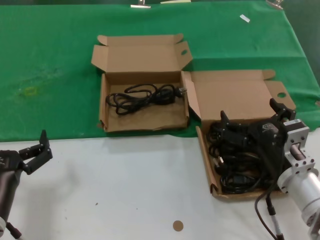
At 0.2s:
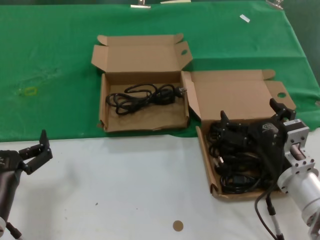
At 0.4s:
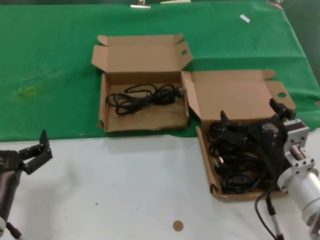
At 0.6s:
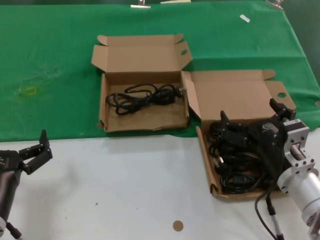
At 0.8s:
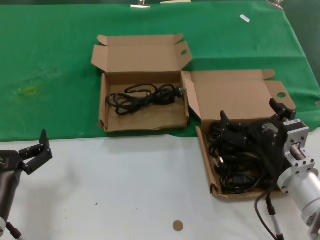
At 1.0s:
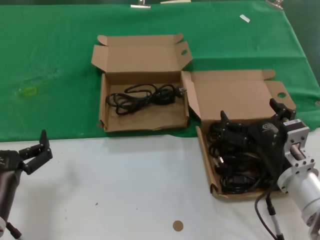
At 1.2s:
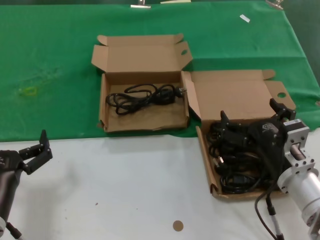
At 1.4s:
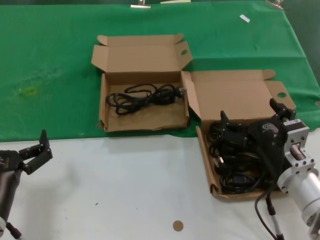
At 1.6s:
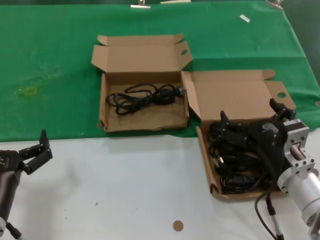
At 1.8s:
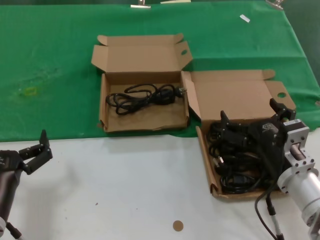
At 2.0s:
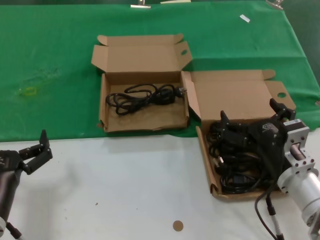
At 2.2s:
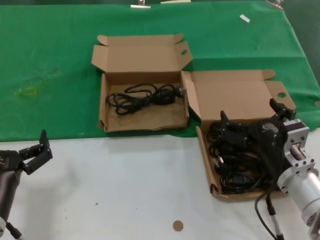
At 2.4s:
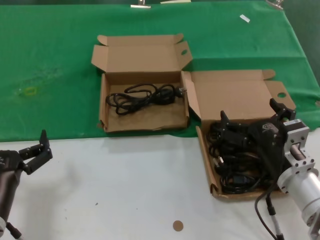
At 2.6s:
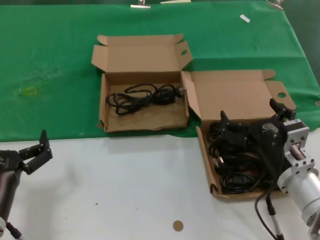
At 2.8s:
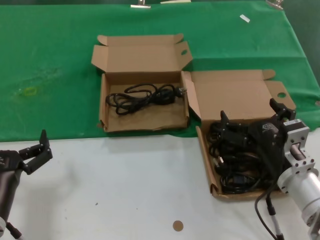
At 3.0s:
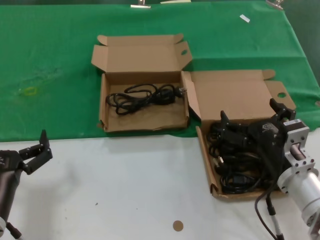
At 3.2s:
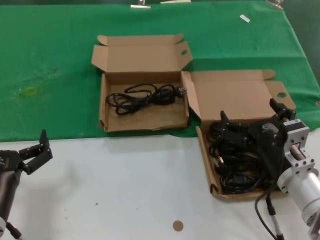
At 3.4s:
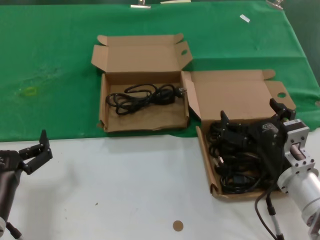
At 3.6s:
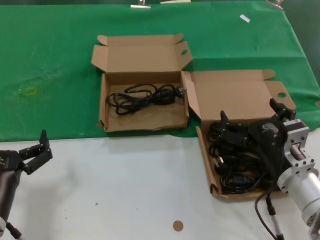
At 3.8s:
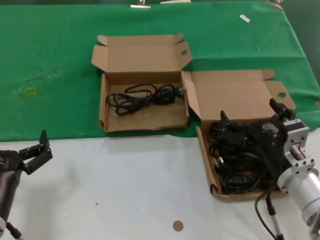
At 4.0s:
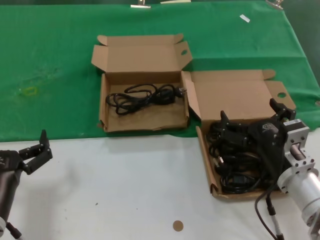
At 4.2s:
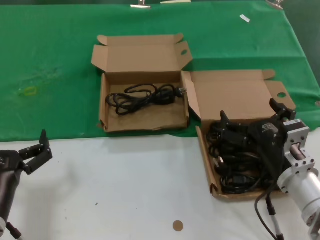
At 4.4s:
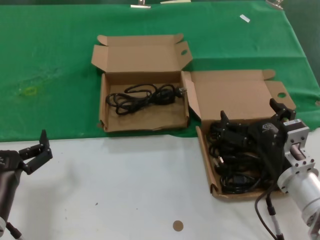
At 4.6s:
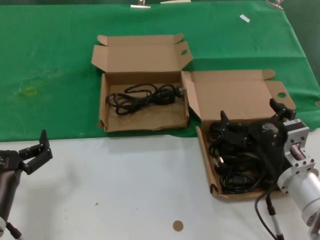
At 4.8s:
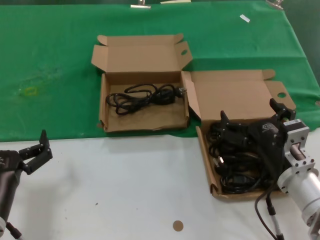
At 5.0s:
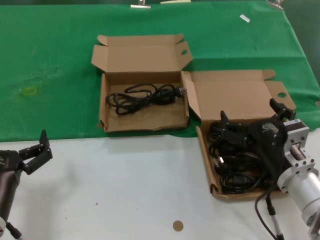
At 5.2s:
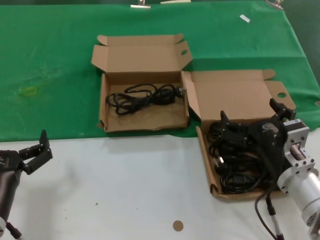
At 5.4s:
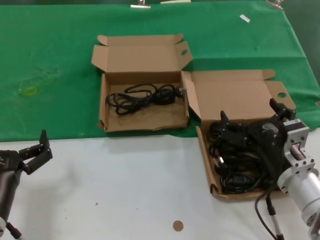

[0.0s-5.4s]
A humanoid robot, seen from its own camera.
Task of the whole recording: take the parts from the box containing them and put them into an empty box.
0.0s to 5.4s: Both hands stay put.
